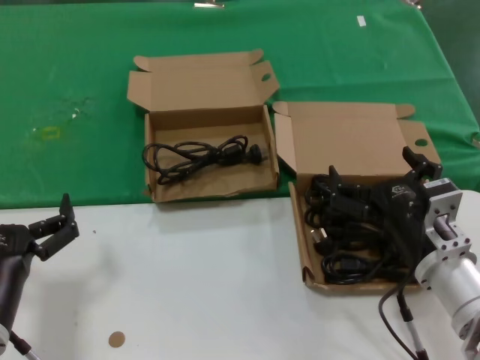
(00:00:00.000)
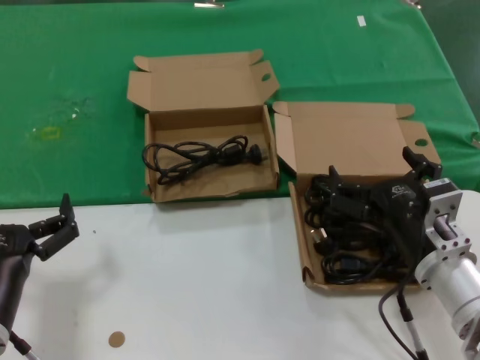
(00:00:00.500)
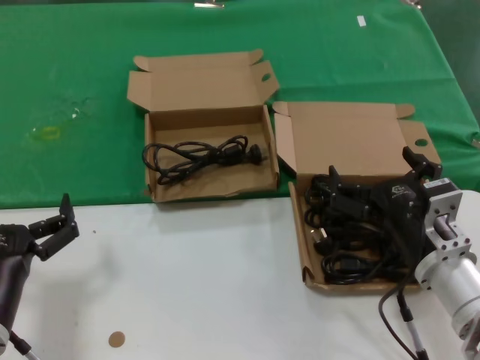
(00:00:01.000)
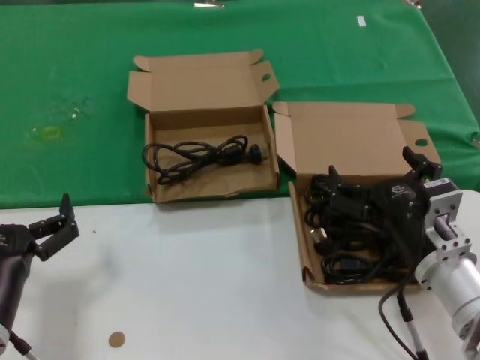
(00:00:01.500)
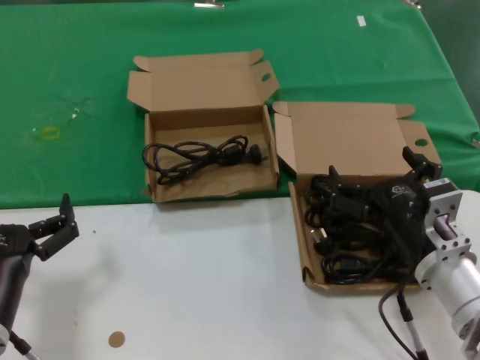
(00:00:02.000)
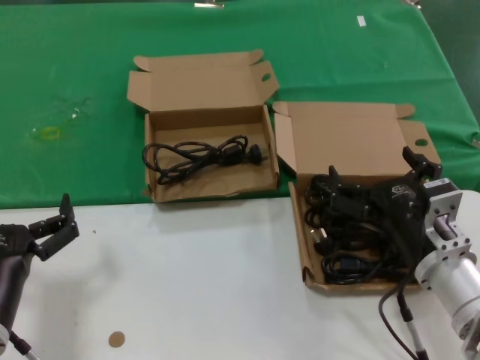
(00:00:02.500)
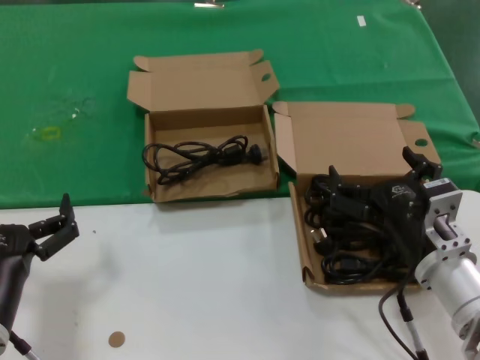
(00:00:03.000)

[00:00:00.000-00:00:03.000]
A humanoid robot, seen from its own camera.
Task of the whole recording: take the parts from the box containing them and put them into an empty box.
00:00:00.000 to 00:00:03.000: Neither hand changes place.
